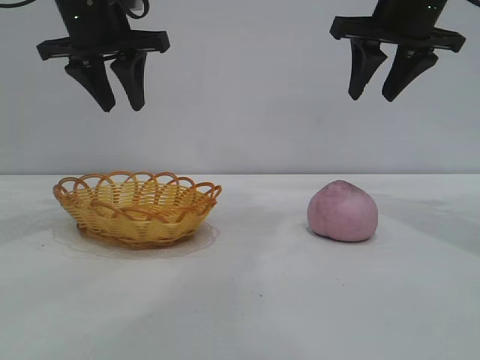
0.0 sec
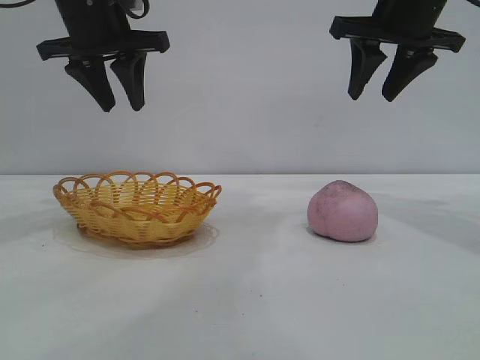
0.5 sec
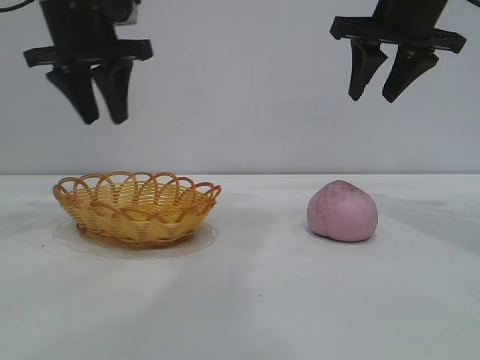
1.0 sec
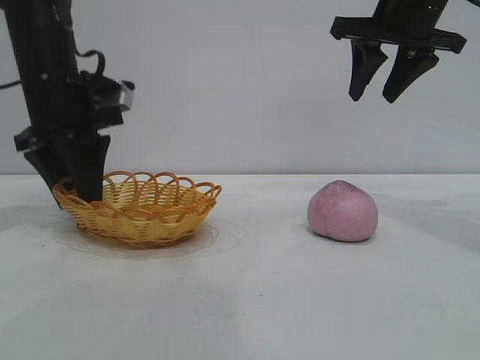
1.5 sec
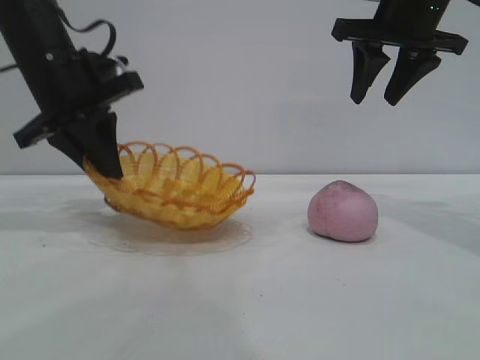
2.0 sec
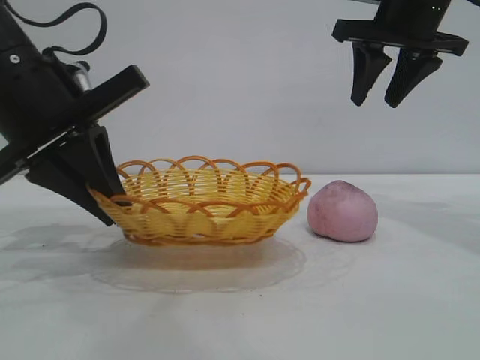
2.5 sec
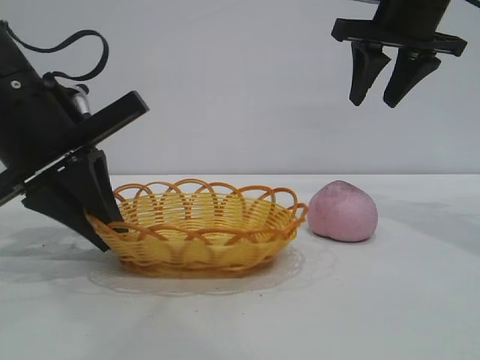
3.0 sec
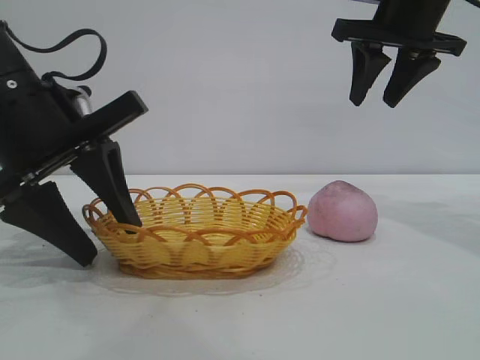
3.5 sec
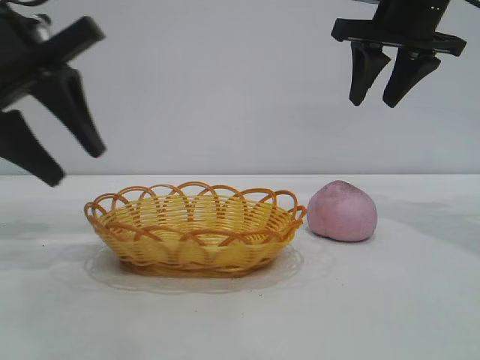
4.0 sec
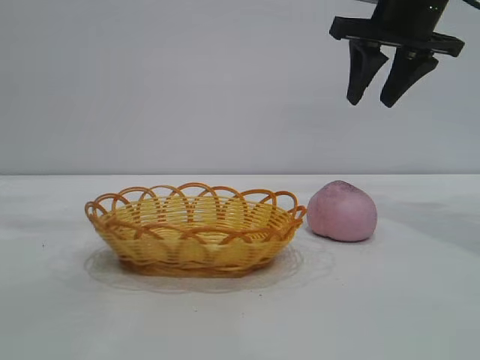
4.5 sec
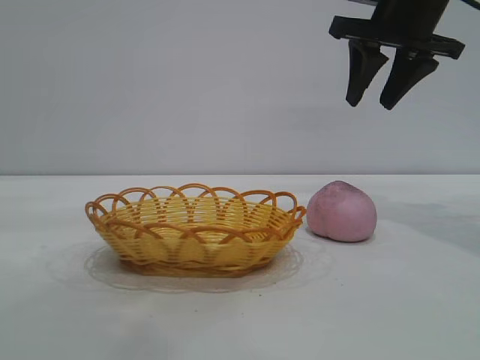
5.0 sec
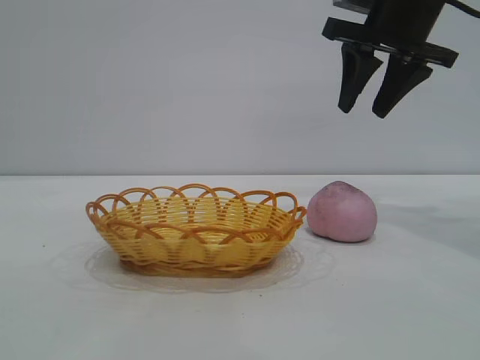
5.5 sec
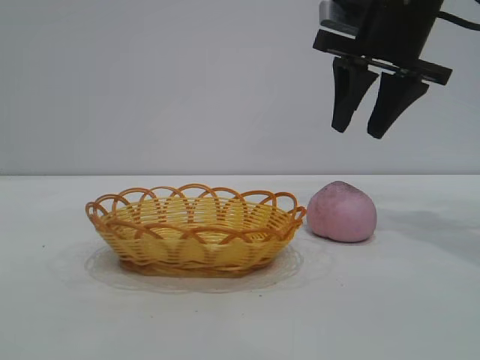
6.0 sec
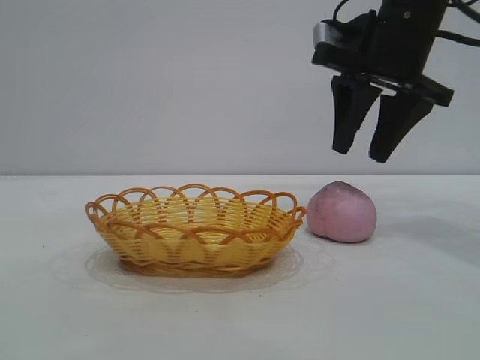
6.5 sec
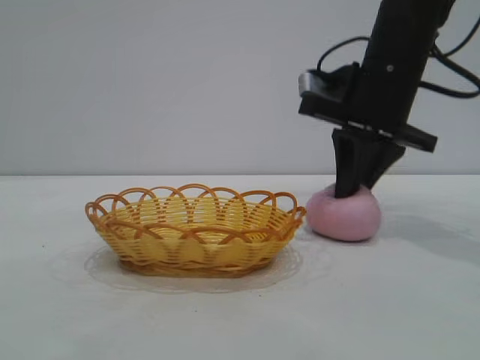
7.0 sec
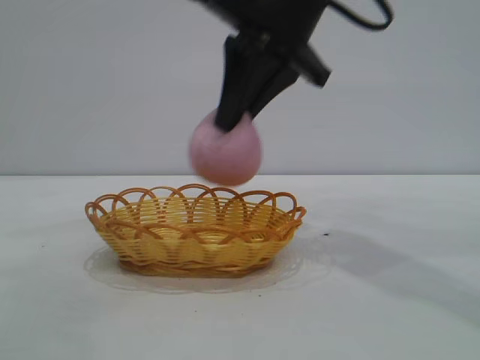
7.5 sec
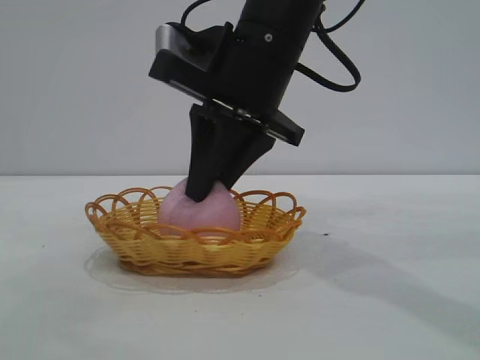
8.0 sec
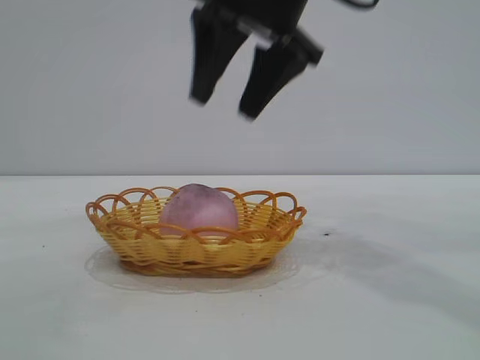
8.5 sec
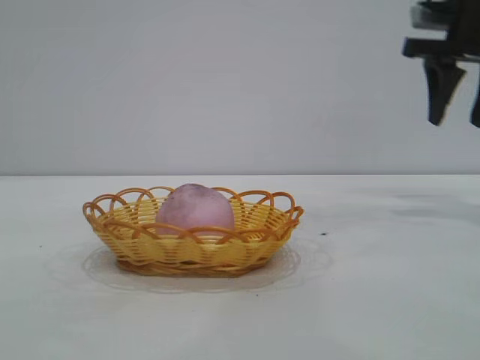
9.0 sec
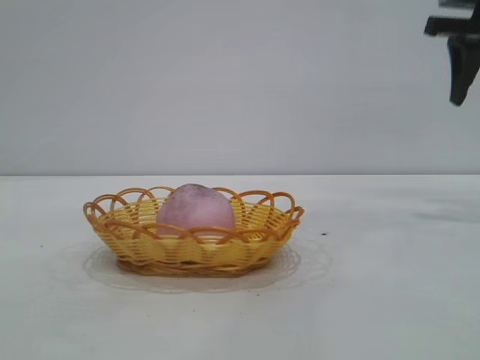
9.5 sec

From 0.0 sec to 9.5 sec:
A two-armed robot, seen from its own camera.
Task of the whole recording: pick up the peach and put it into the basket.
Step, from 0.0 sec to 3.5 sec: Move the basket to the center of view.
Step, from 4.5 sec to 7.0 sec: Pick up the peach.
Step, from 7.5 sec to 8.0 sec: place the peach into the basket.

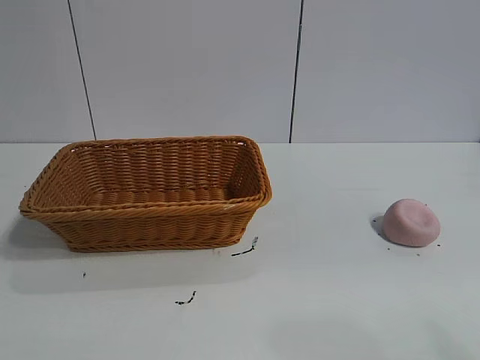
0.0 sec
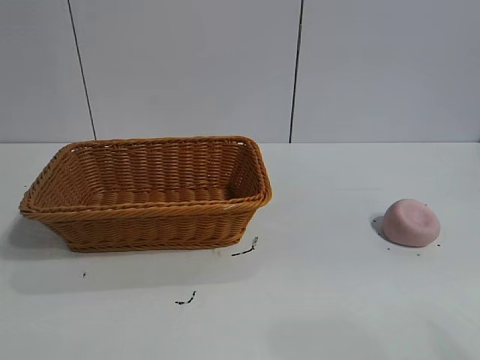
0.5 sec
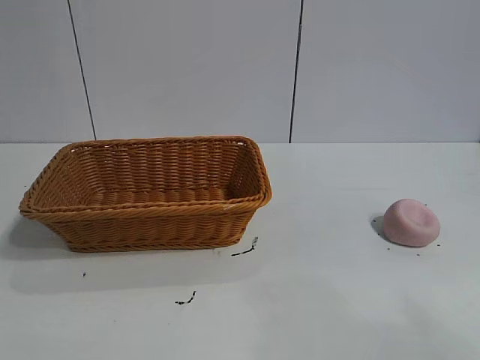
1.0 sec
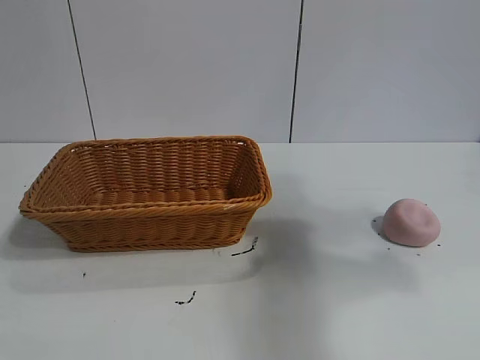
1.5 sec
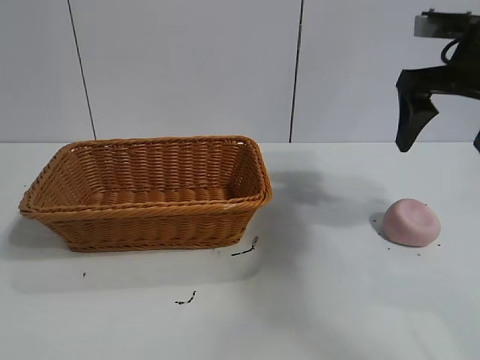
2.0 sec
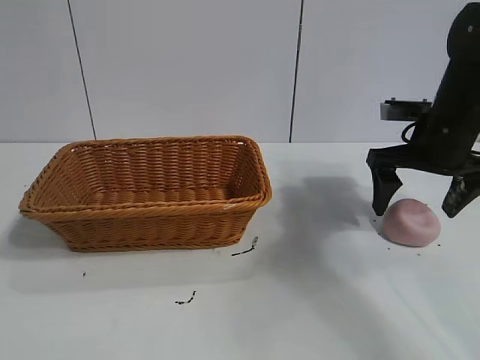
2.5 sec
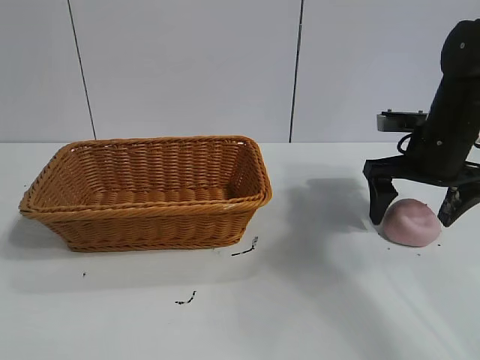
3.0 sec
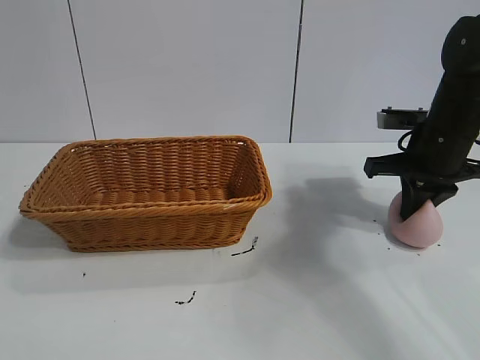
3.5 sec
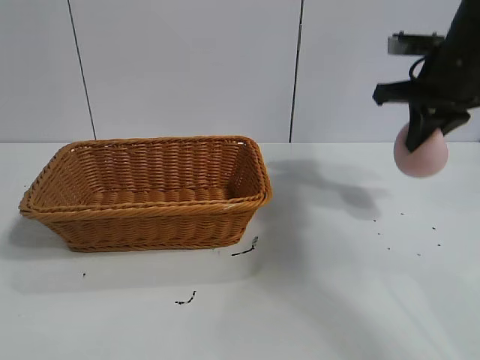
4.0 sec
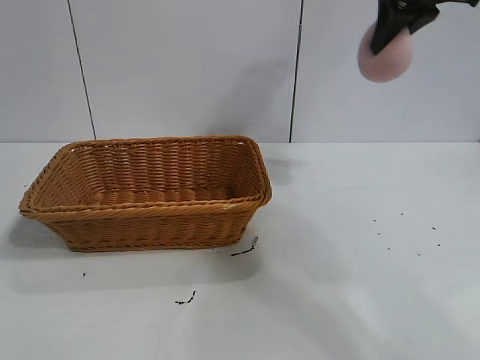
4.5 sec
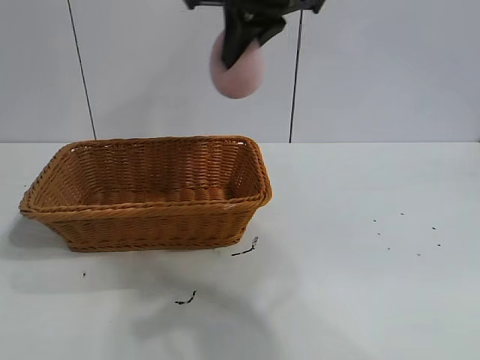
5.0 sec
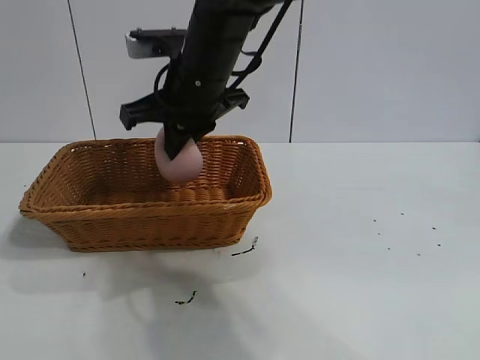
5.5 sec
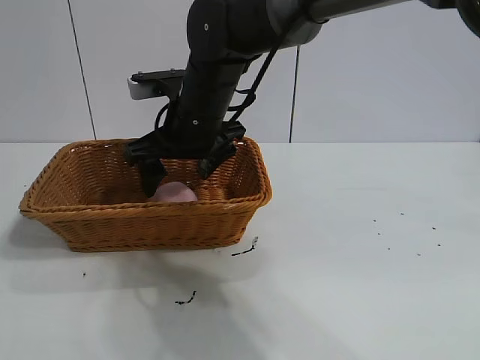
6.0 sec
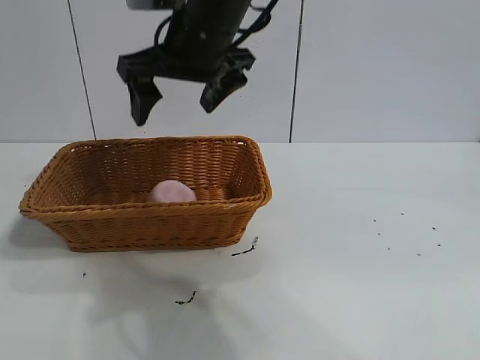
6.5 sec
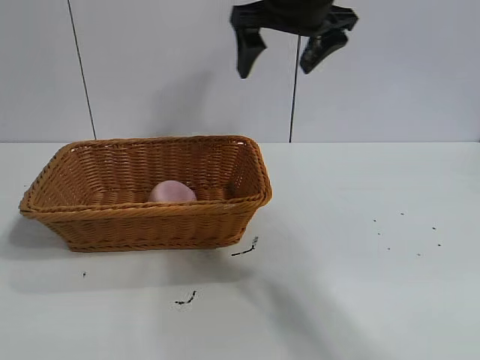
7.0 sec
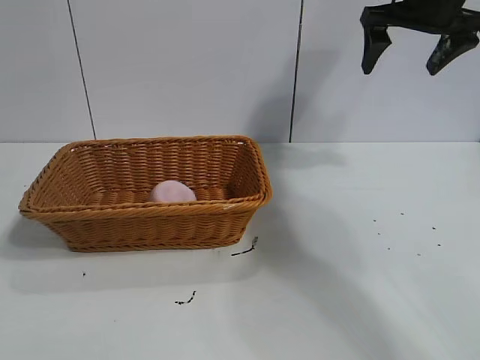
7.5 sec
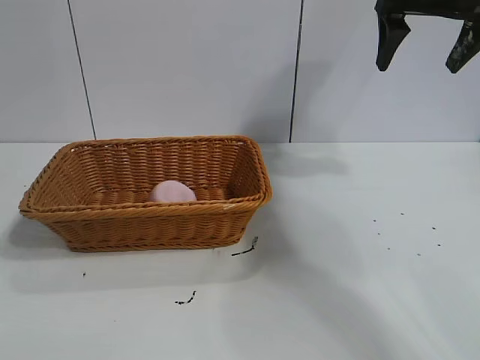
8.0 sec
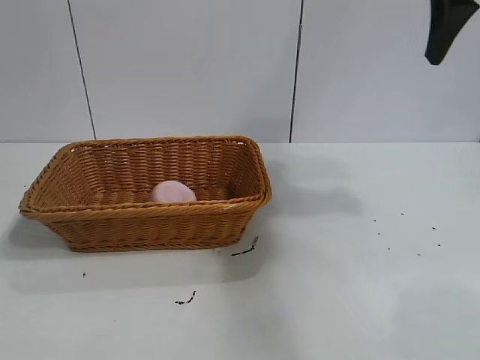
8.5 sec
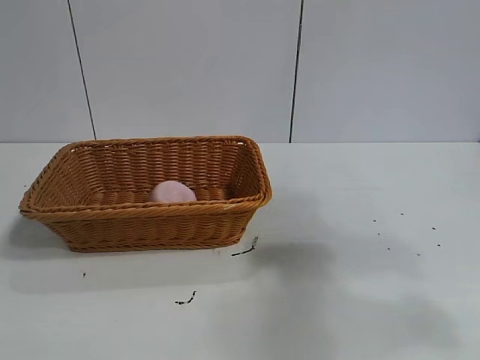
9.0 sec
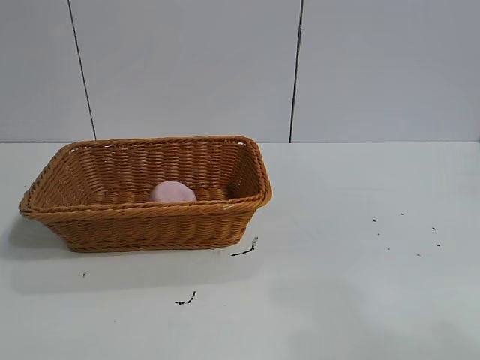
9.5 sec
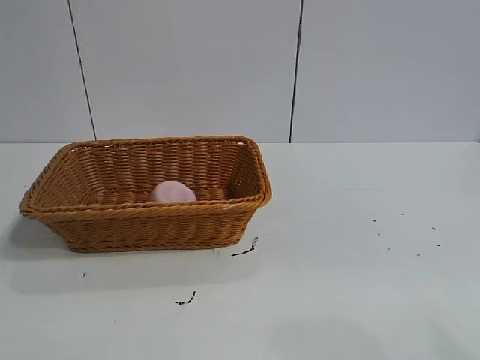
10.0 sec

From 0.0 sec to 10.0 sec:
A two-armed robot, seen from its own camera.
Task of the whole recording: pick up the peach and put it into the basket.
Step, from 1.0 sec to 3.5 sec: Grasp the peach with right gripper.
Step, from 4.0 sec to 6.0 sec: Place the peach in the basket with right gripper.

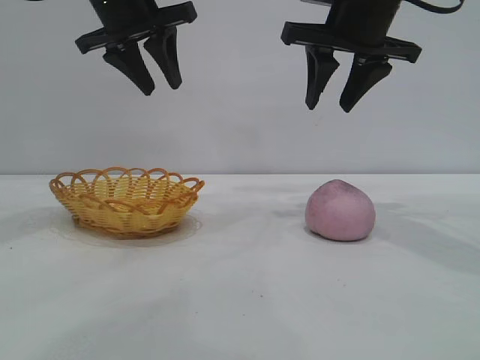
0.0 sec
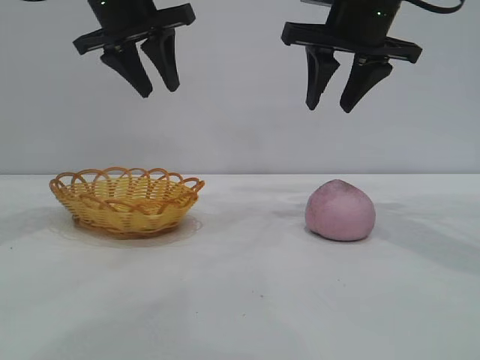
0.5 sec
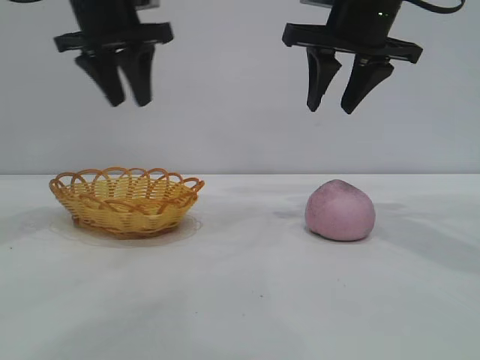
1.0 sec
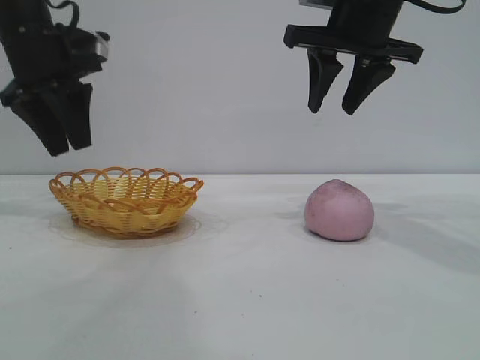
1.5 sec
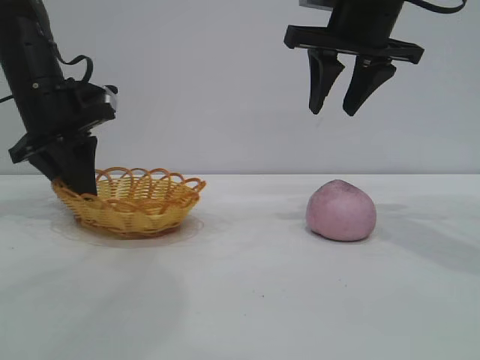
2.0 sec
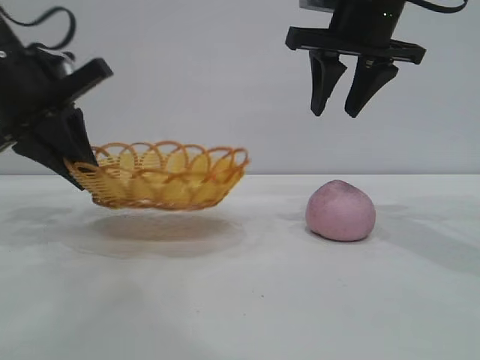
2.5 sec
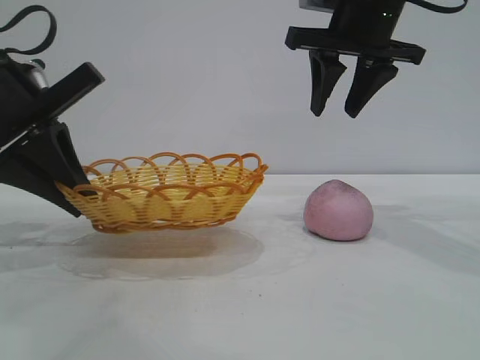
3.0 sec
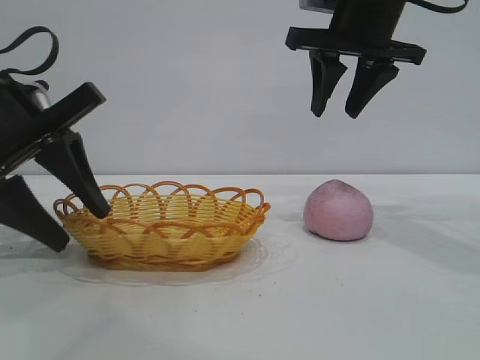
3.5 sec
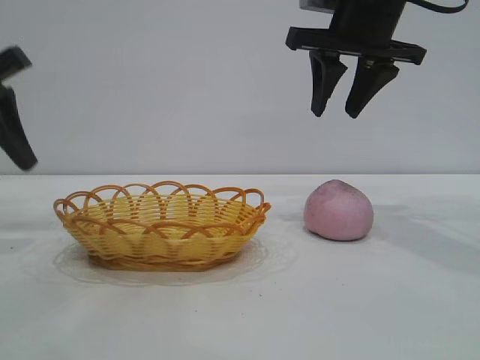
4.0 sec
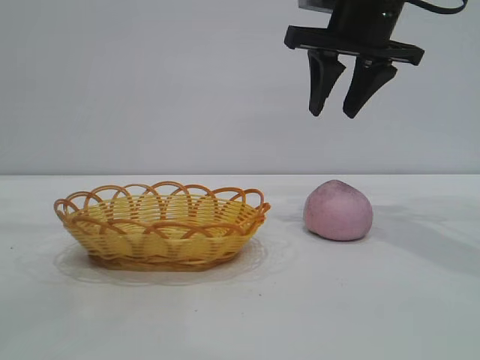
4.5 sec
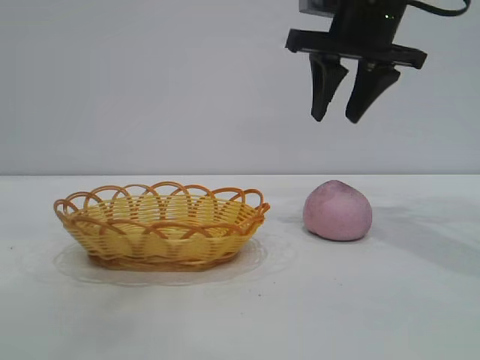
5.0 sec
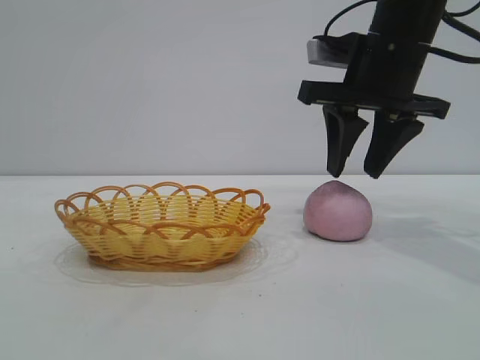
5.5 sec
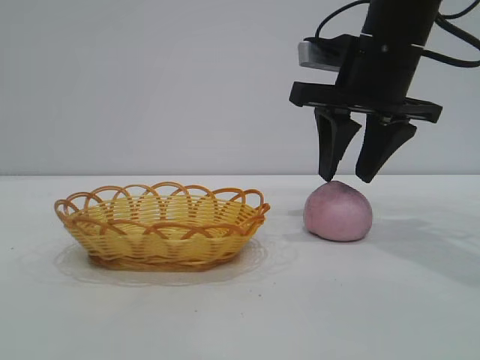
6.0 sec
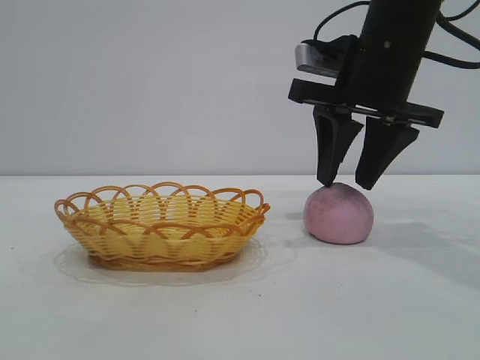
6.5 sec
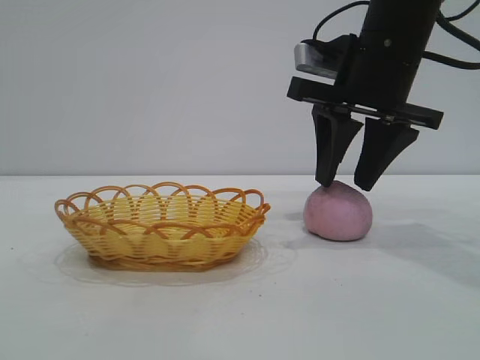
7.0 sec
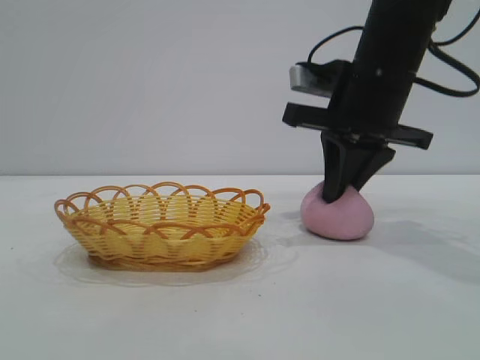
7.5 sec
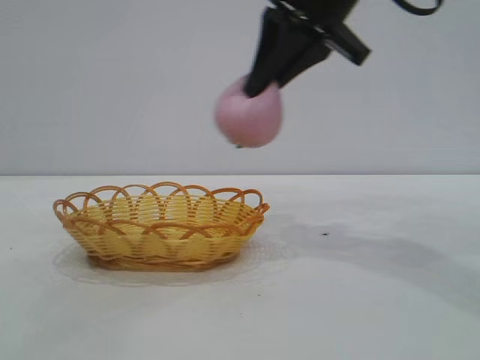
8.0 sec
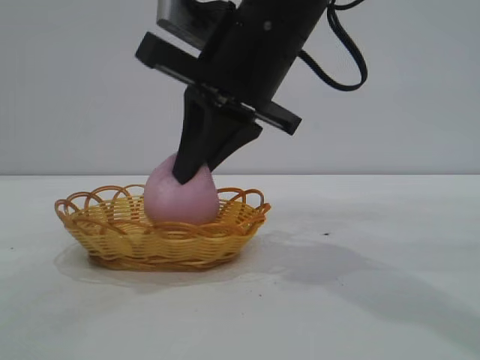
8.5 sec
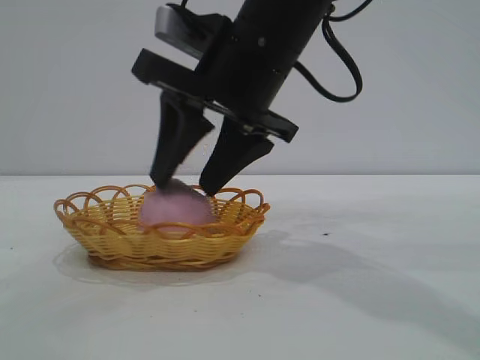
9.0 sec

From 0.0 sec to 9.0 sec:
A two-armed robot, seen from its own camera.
Task of the whole recording: pick up the peach and put it into the basket.
Step, from 0.0 sec to 3.5 sec: Move the basket to the center of view.
Step, from 4.0 sec to 7.5 sec: Pick up the peach.
